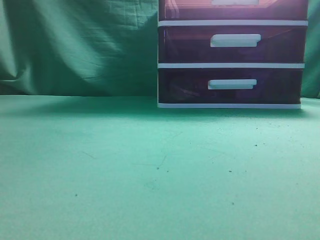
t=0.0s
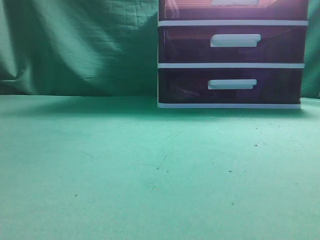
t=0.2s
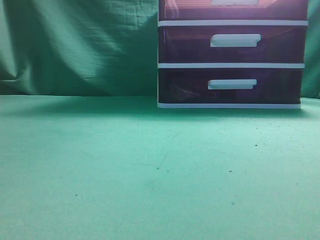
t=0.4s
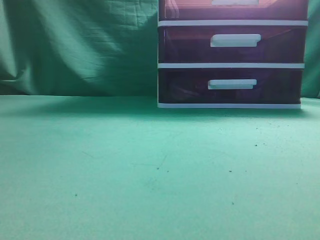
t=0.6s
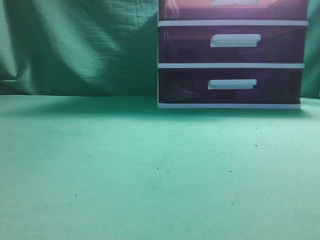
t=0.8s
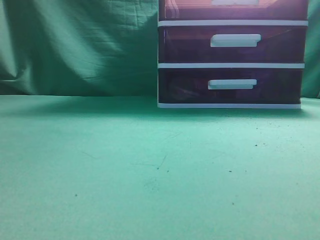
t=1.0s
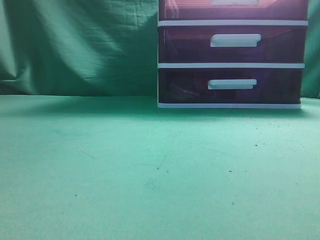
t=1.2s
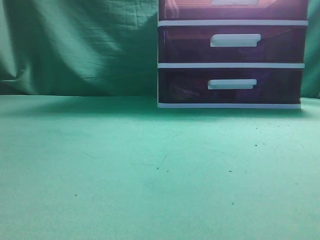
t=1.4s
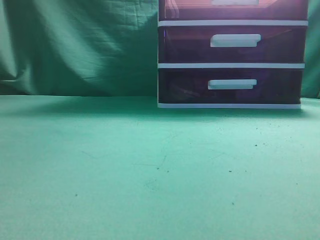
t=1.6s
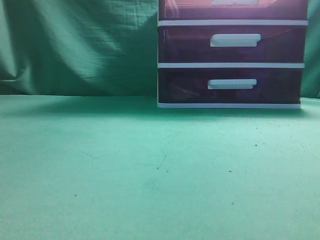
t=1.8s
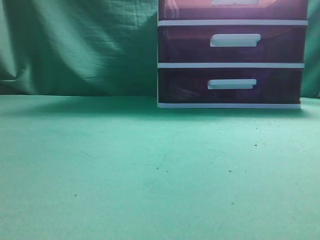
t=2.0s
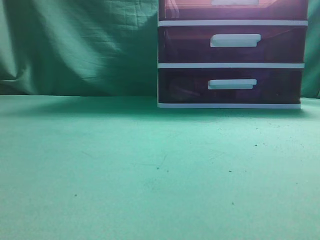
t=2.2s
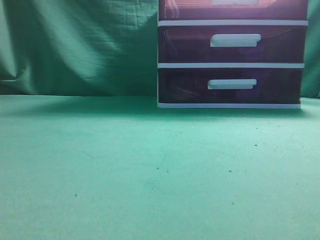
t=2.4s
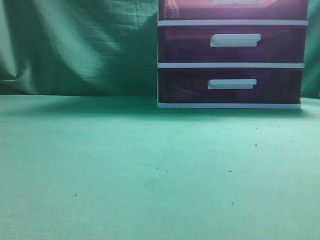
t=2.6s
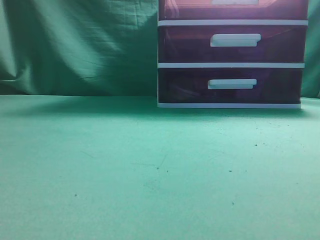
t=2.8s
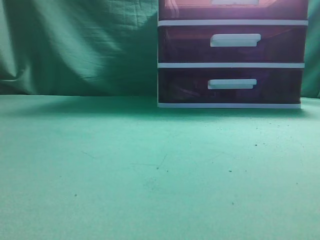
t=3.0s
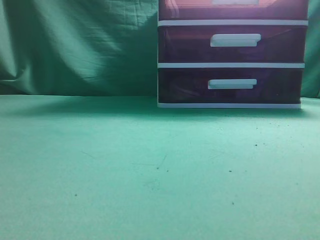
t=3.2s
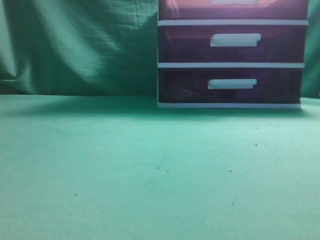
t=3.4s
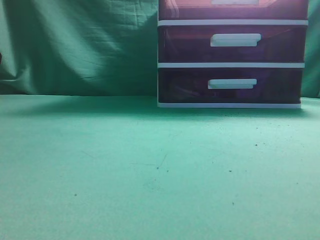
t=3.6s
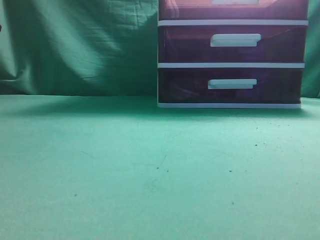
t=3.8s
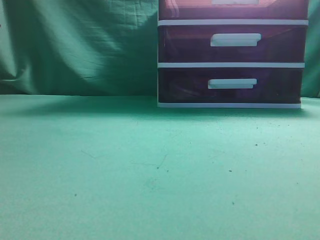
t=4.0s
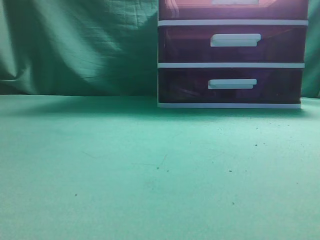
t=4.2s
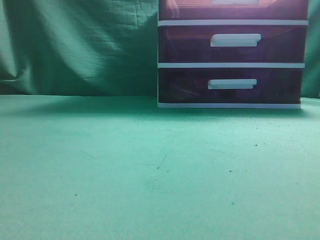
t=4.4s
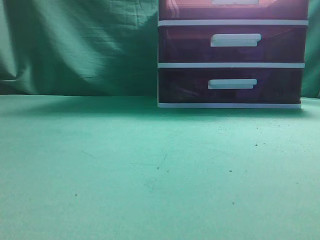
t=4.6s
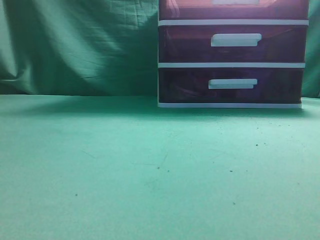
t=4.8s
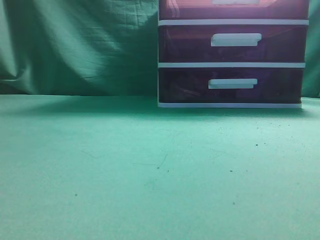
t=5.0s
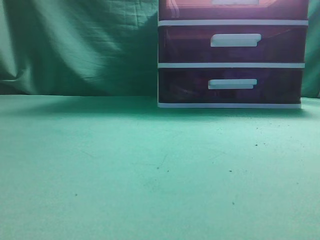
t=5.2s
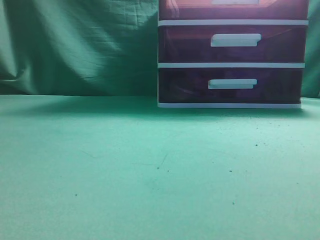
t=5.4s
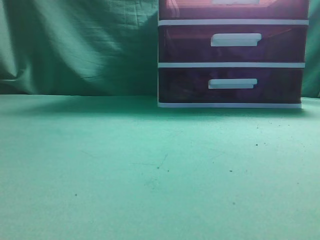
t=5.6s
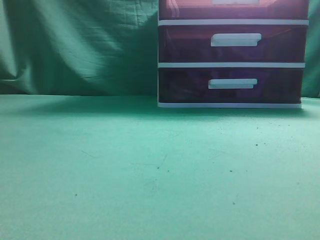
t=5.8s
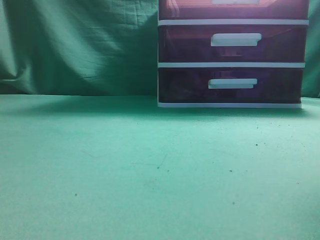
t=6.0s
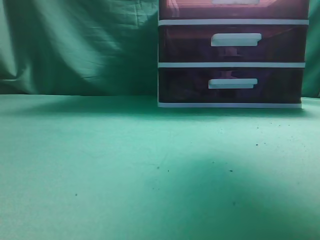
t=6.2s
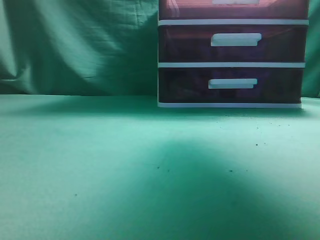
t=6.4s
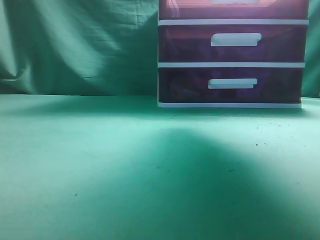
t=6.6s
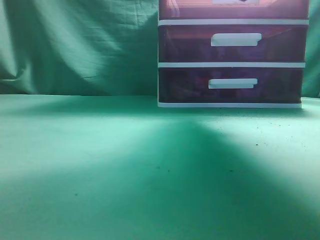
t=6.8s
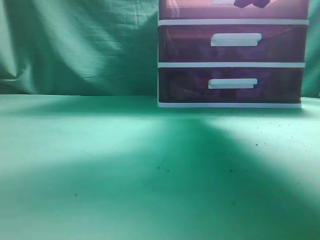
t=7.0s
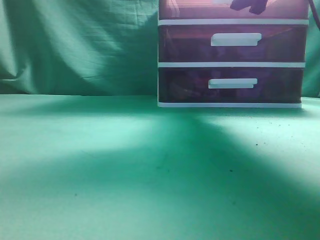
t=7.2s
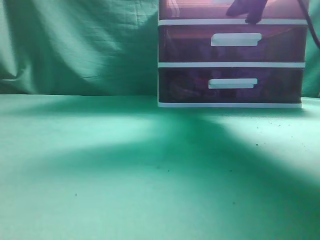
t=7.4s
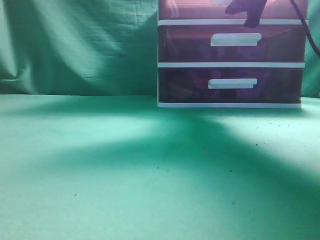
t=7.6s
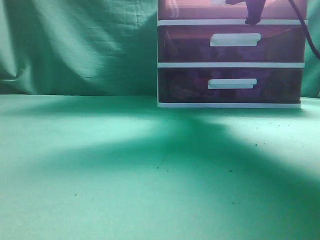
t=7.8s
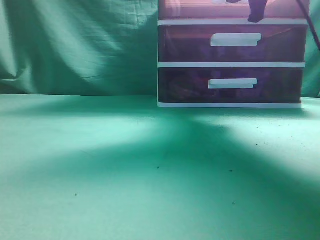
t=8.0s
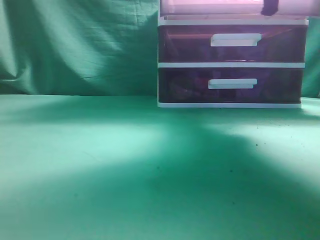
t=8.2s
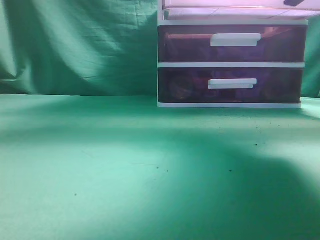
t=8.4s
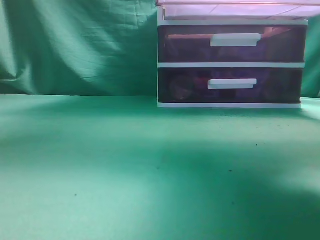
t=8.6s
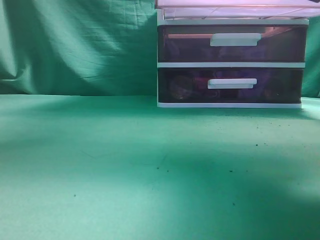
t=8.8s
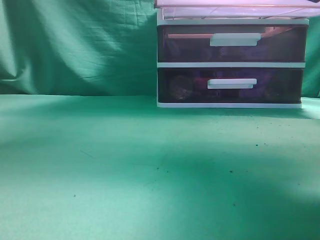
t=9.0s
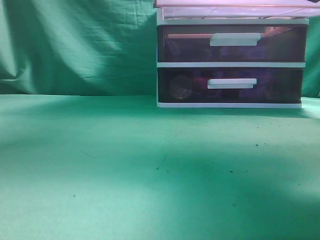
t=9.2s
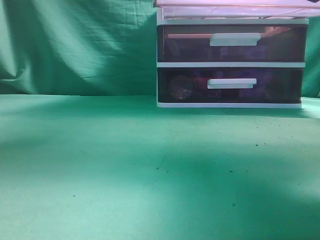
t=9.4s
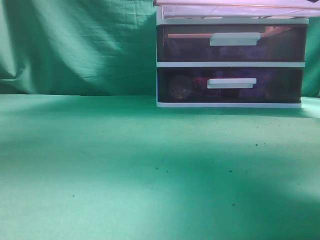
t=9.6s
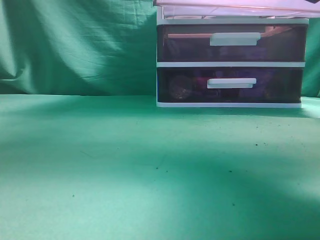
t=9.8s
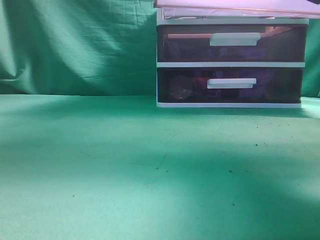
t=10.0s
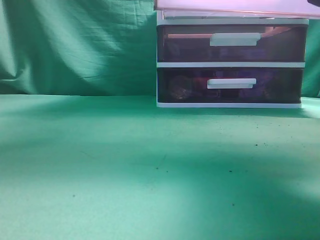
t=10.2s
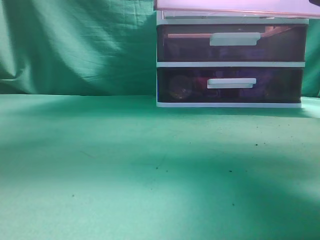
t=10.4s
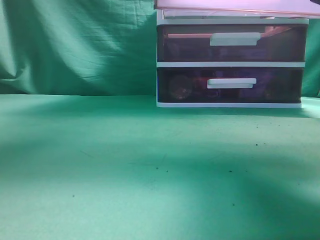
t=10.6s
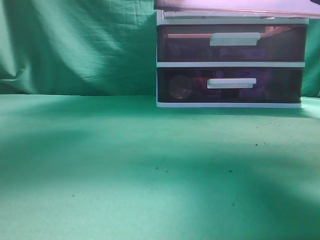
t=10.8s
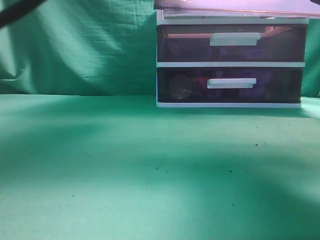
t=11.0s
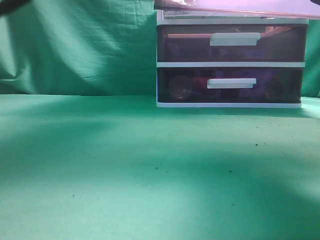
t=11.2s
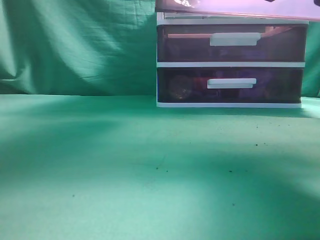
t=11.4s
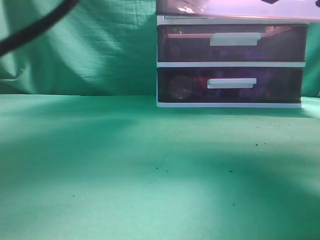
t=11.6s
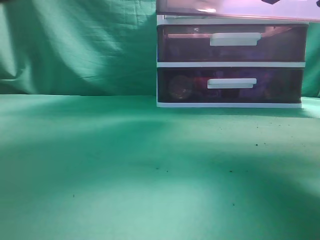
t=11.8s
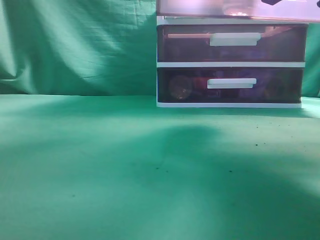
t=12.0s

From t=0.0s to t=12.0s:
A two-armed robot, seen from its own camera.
Task of the whole recording: place the water bottle into the drawer.
Step, from t=0.0s to t=8.6s: Open the drawer.
From t=6.0s to t=7.6s: The right gripper shifts some 15 cm forward, downward and to the left, and opens, then closes once more.
From t=7.6s to t=9.0s: The right gripper goes some 15 cm backward. Meanwhile the left gripper heads upward, covering approximately 5 cm.
From t=9.0s to t=10.4s: The left gripper travels to the right and forward by about 25 cm.
From t=10.4s to t=12.0s: The left gripper travels downward, to the right and forward by roughly 10 cm, and opens.

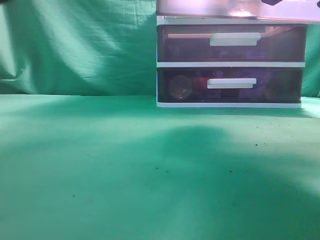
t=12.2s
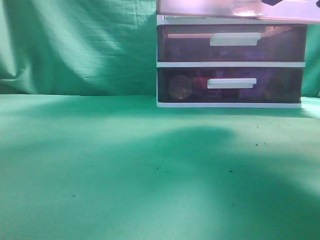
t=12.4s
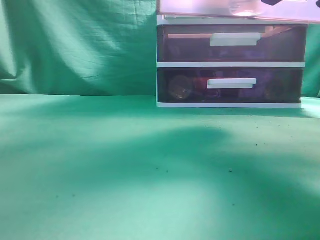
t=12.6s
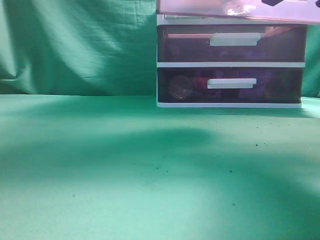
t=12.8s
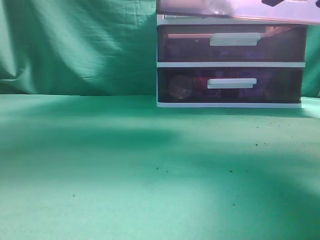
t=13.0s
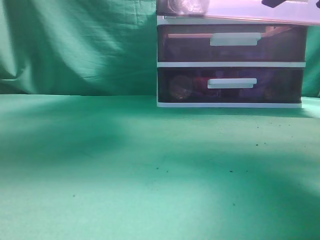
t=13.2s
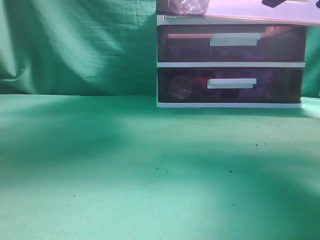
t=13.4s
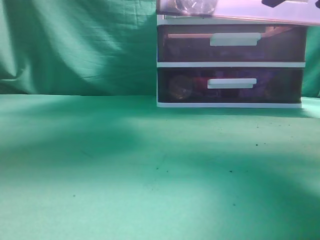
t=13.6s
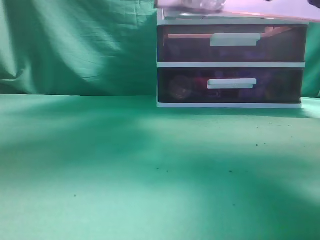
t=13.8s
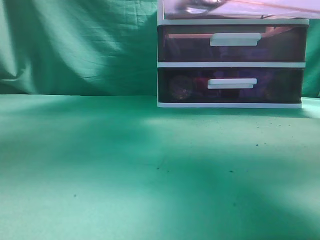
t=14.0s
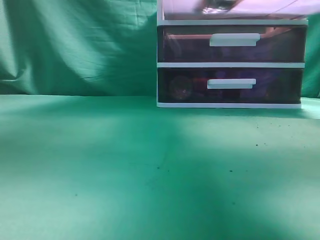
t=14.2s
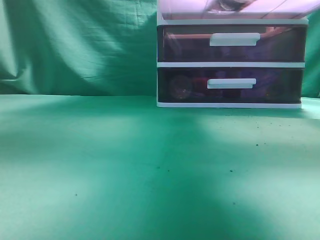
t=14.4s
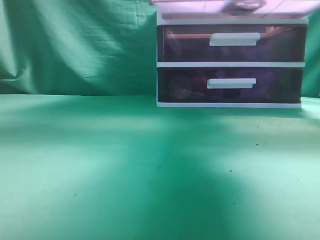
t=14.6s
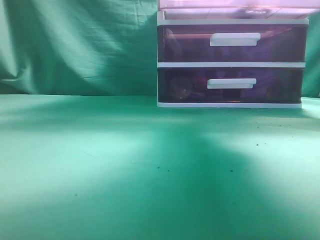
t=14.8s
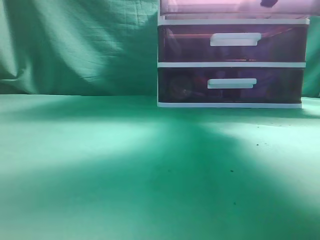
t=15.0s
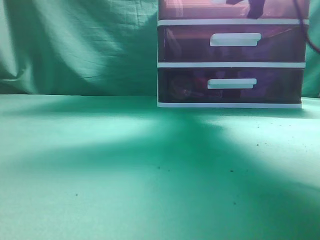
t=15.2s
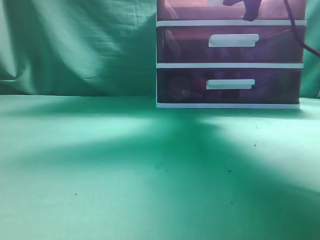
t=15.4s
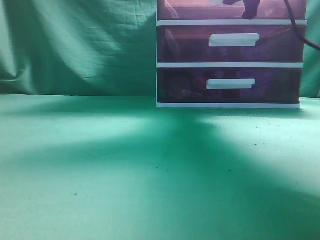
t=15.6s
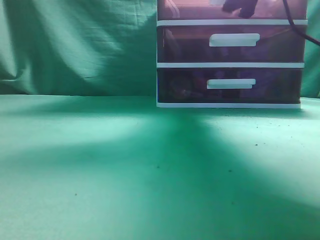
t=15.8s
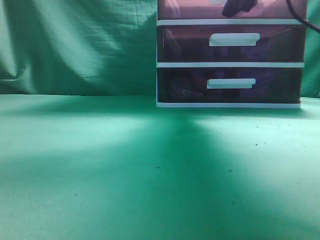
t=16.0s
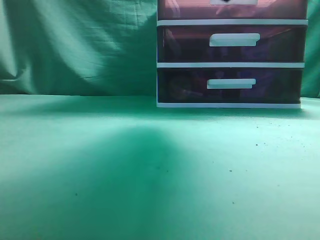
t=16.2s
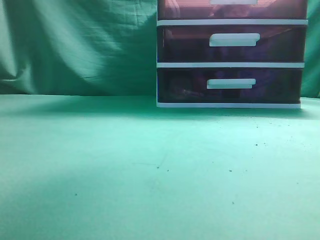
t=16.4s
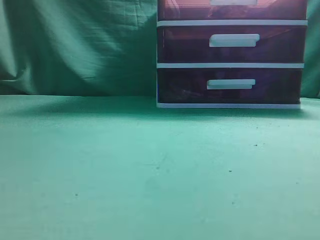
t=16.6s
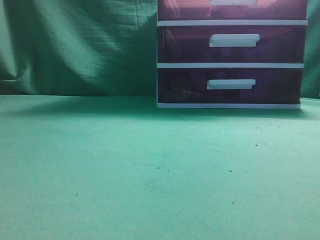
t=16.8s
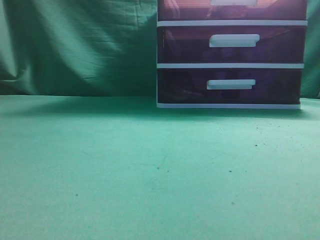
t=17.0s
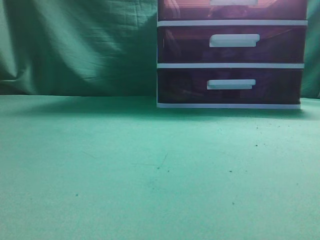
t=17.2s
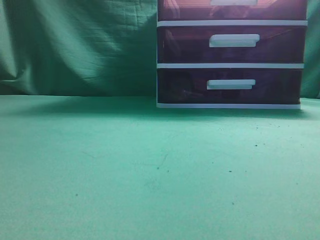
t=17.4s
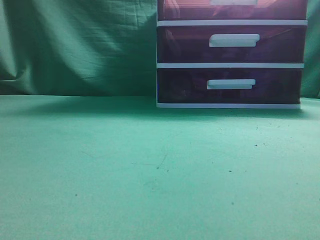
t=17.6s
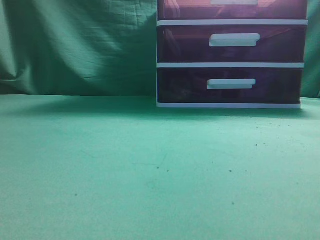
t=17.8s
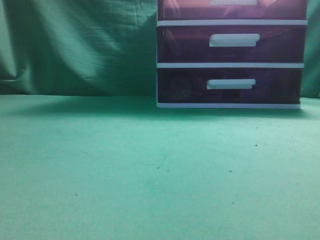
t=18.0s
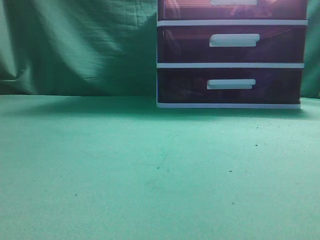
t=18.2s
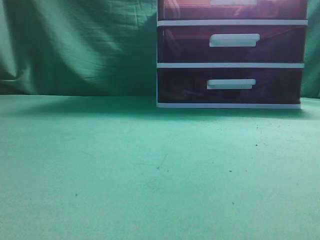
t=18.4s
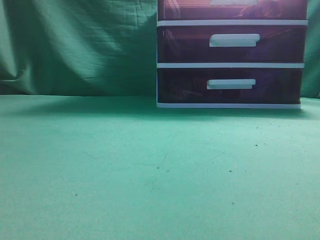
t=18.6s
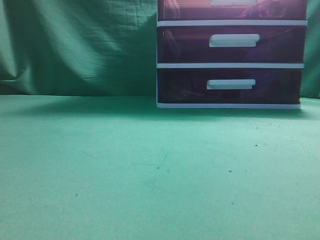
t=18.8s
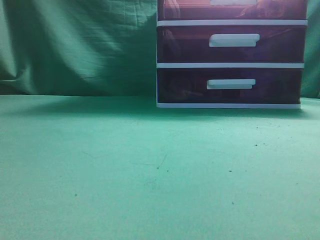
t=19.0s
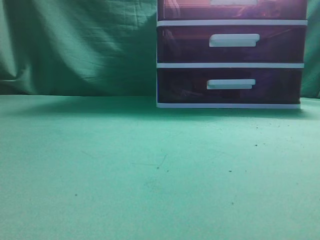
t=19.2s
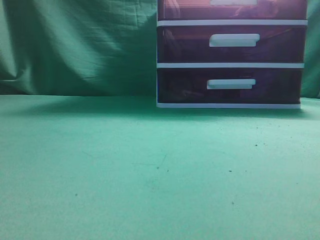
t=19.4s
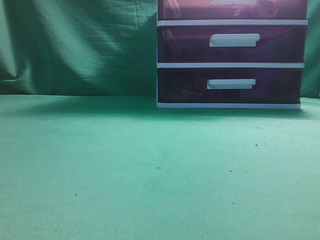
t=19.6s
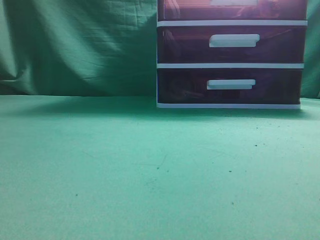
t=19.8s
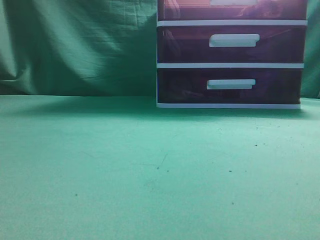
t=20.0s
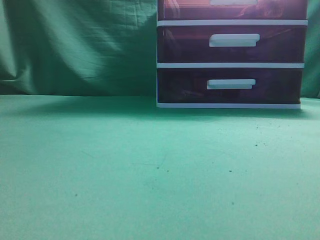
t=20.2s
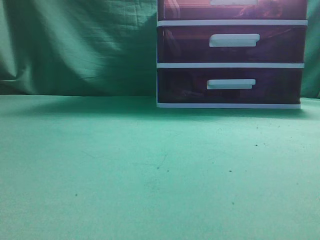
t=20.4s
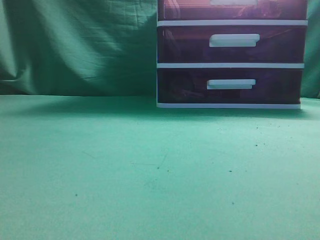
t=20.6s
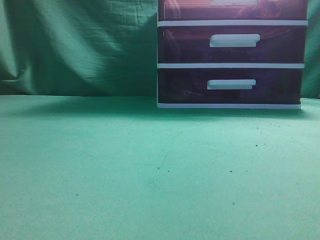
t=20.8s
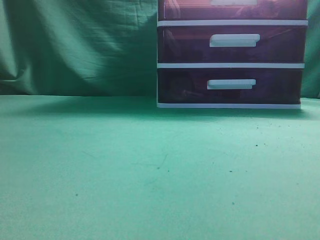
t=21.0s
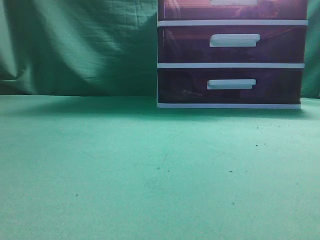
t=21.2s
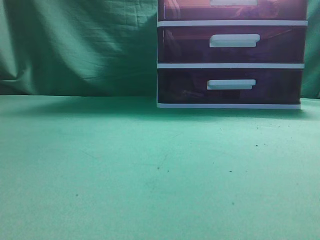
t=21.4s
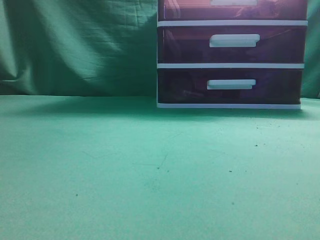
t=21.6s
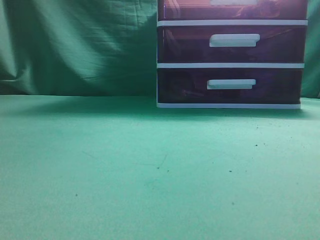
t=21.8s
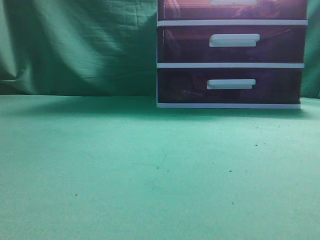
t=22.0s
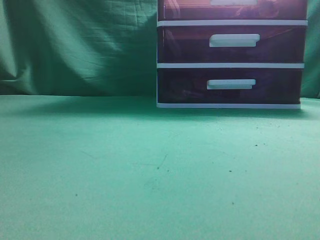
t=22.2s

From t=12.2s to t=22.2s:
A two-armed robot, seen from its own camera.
Task of the whole recording: place the water bottle into the drawer.
Step, from t=13.4s to t=16.0s: Close the drawer.
From t=12.2s to t=13.6s: The left gripper travels to the left and upward by about 15 cm, and closes.
From t=13.6s to t=15.0s: The right gripper travels forward by approximately 15 cm, while the left gripper heads backward and to the left, covering about 30 cm.
From t=15.0s to t=16.4s: The right gripper travels backward and upward by approximately 20 cm, and opens, then closes once more.
From t=16.4s to t=18.0s: The left gripper shifts approximately 20 cm downward; the right gripper shifts roughly 30 cm backward and downward.
